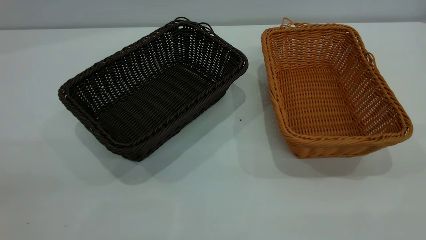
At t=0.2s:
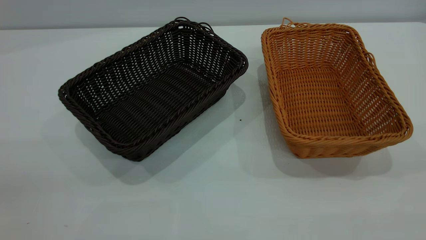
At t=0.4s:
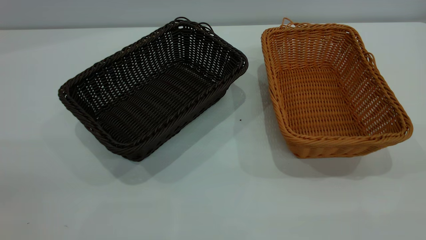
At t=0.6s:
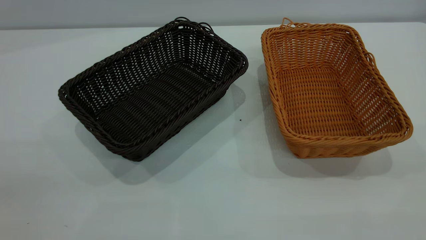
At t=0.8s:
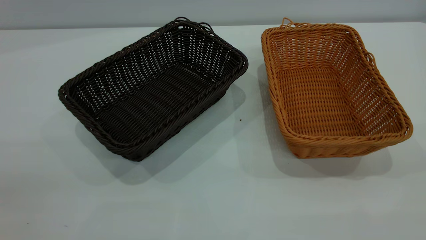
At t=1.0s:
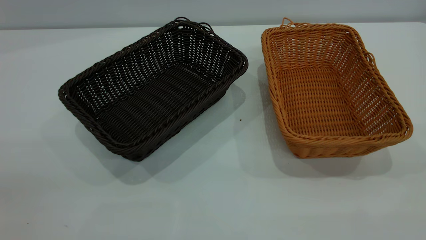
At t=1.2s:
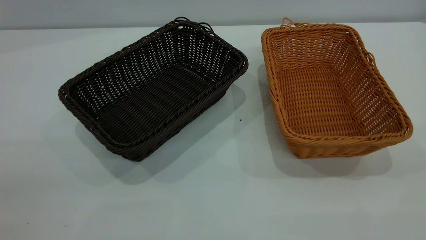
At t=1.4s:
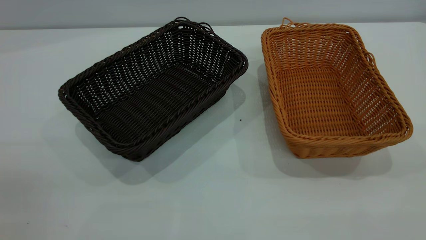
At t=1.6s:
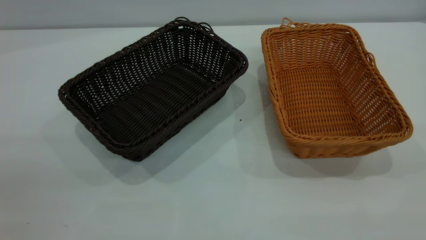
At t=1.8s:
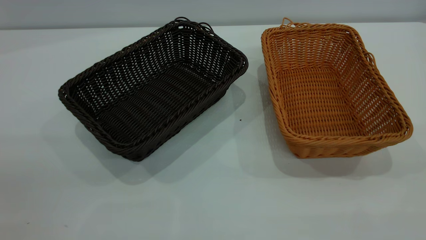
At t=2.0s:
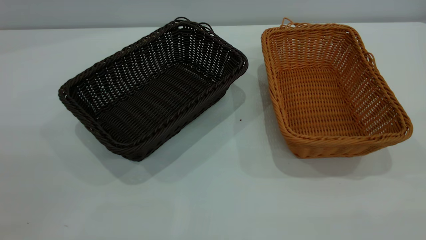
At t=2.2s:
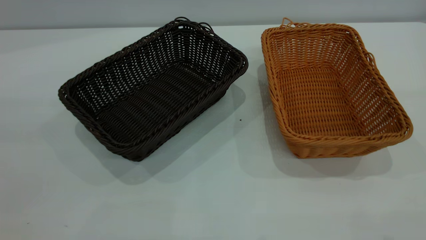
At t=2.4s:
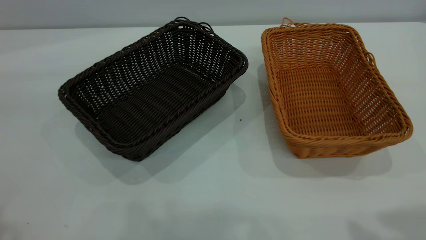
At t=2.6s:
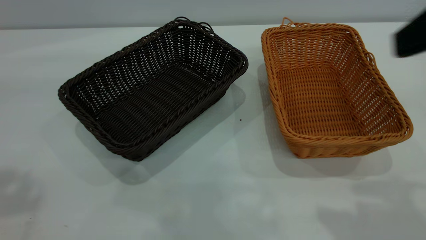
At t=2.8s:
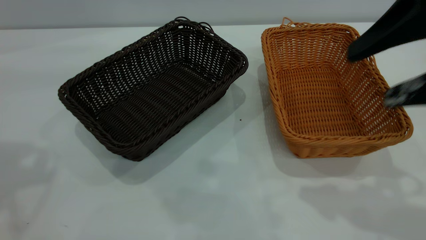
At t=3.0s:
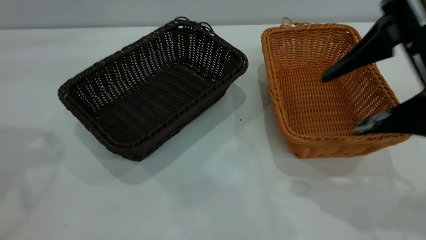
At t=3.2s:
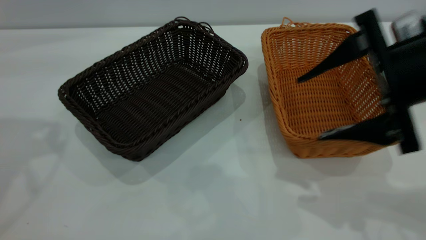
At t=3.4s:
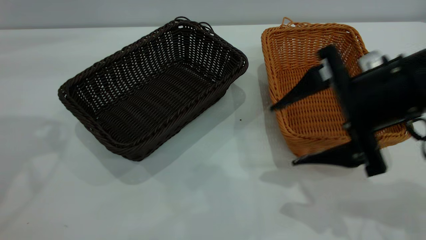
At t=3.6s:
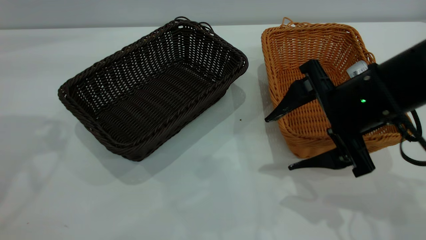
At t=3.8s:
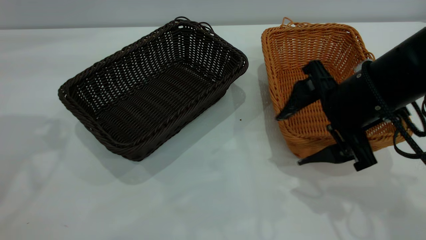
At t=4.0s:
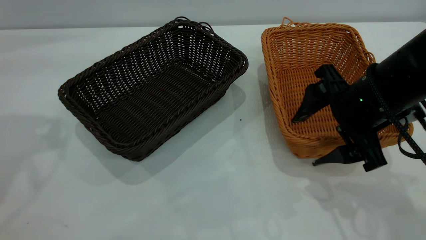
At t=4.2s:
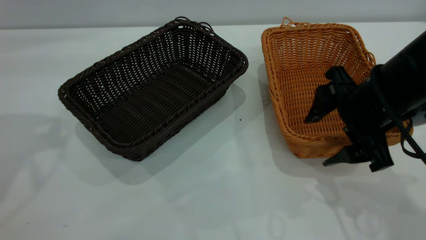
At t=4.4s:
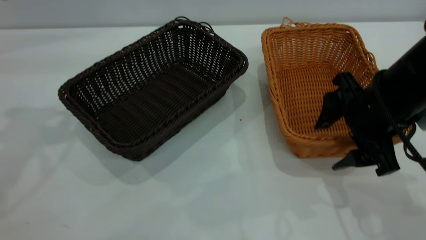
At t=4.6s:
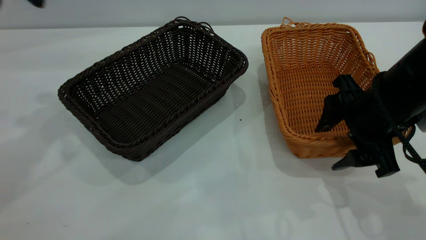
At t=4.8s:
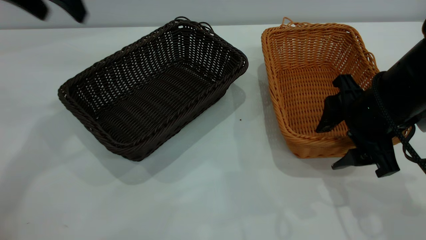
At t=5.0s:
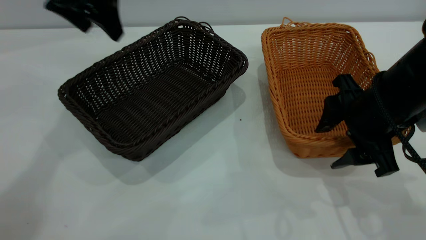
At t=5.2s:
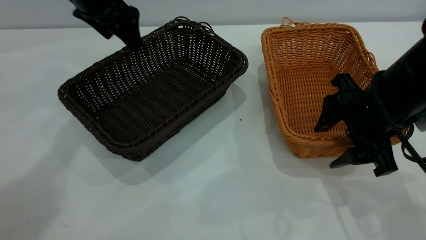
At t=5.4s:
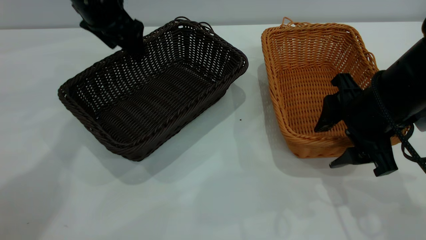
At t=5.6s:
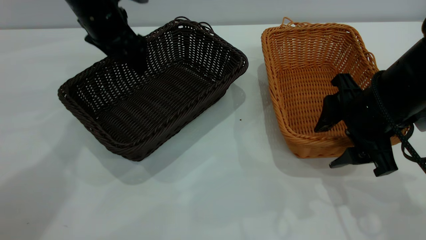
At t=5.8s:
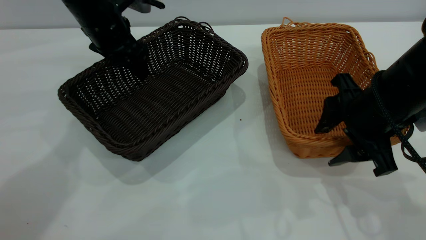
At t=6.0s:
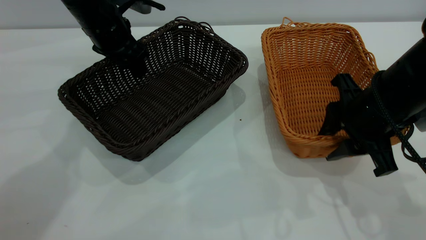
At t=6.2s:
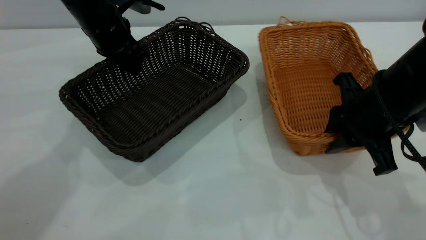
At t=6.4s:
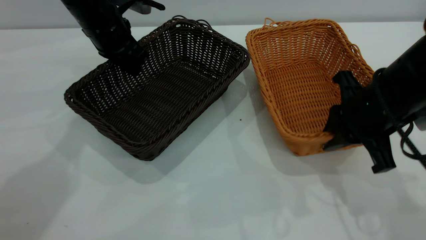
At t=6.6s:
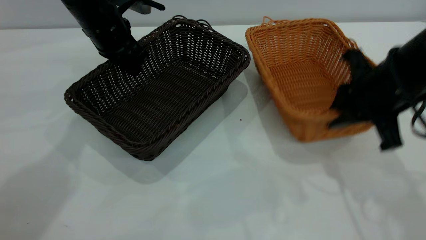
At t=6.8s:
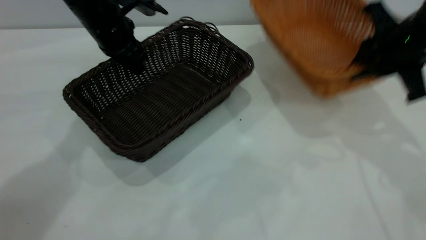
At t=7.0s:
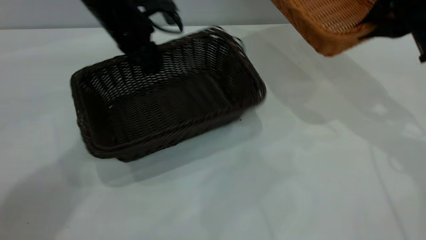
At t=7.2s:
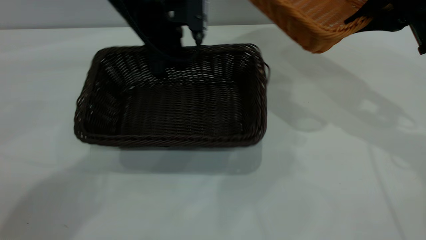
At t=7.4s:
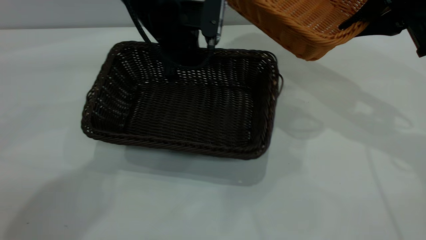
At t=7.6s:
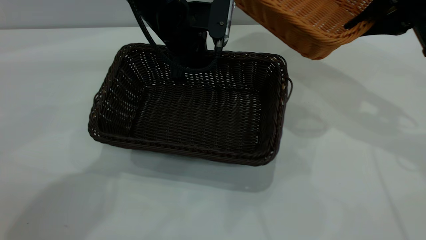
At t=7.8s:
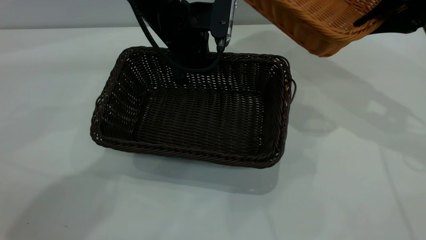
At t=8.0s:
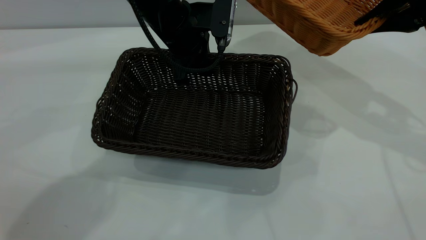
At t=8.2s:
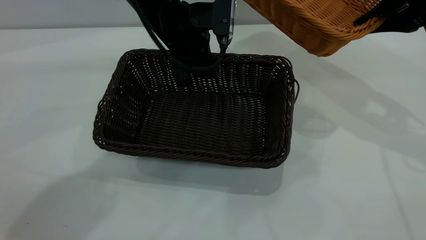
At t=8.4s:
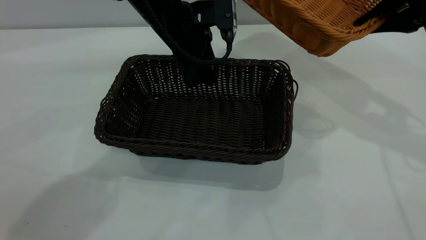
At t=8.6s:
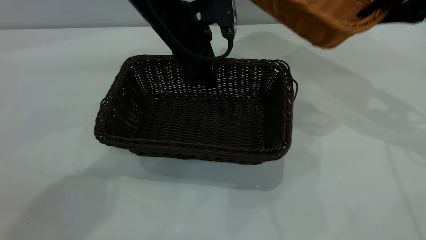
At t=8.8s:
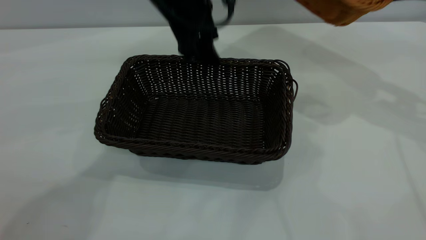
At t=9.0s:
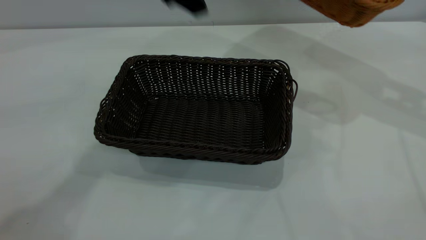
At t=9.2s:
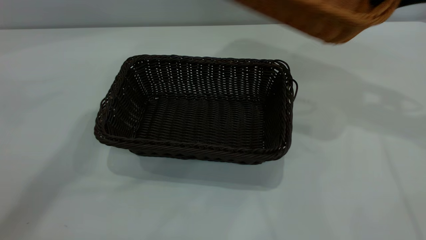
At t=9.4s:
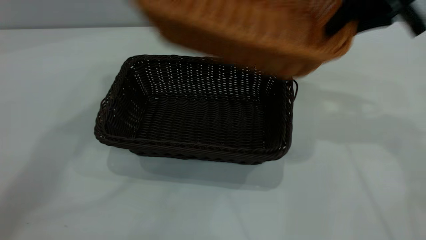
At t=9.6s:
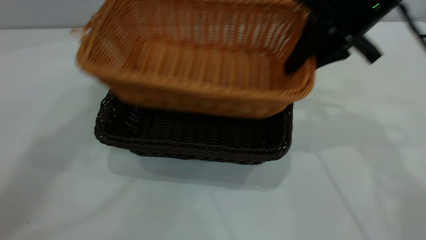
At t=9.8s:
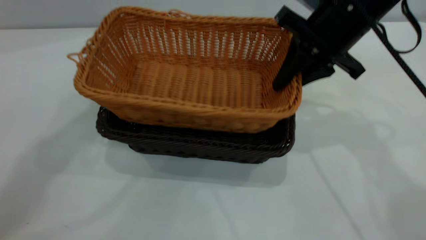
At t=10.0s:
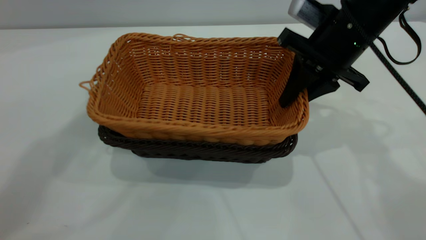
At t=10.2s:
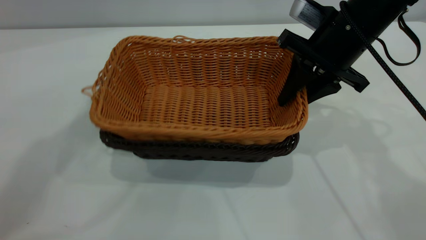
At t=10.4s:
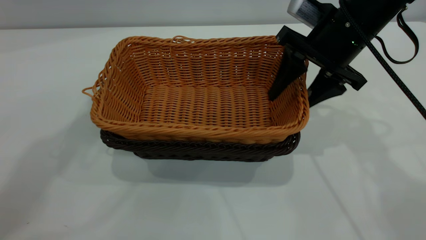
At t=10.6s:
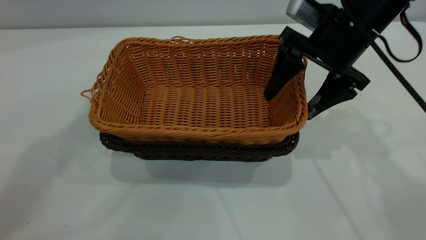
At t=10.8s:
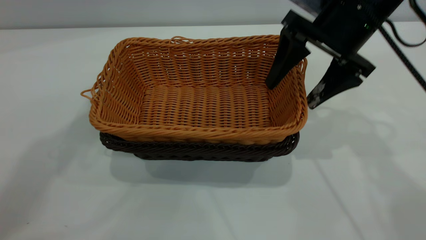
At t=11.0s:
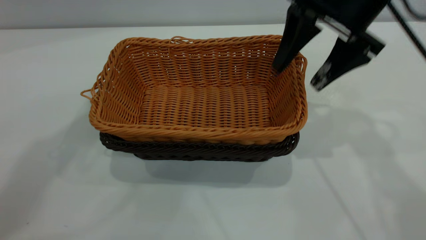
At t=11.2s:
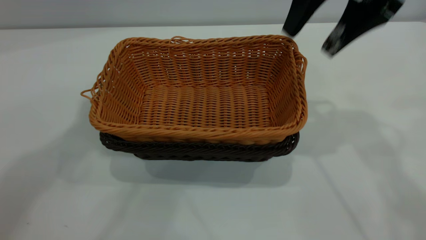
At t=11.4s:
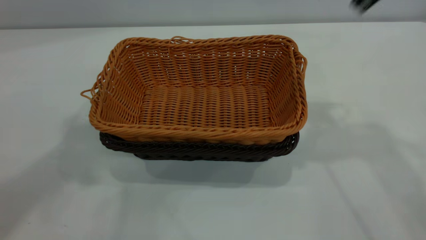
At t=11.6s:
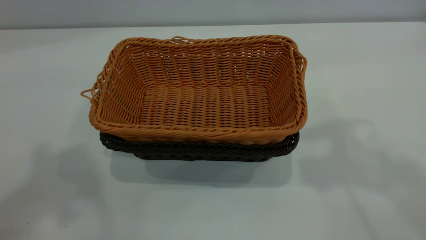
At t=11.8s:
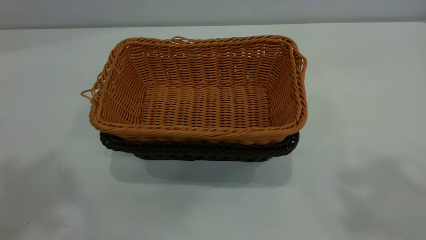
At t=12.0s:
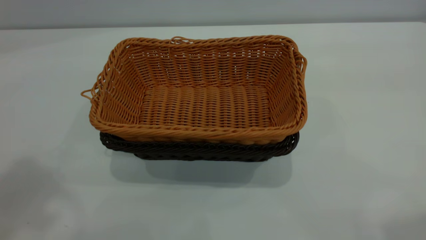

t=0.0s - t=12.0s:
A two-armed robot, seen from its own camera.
Task of the whole recording: the left gripper grasp the black basket and place it in the center of the table, the right gripper grasp the brown basket and place it inside the black one.
Step, t=0.0s - t=6.6s: Pick up the light basket with the right gripper.
Step, t=6.8s - t=8.8s: Move the dark basket to the center of view.
Step, t=9.0s - t=11.2s: Place the light basket on the dark basket.
t=0.0s - t=1.6s: Both grippers stay put.
t=1.6s - t=3.0s: The right gripper travels forward and downward by some 25 cm.
t=3.0s - t=4.4s: The right gripper moves downward, roughly 10 cm.
t=4.4s - t=6.0s: The left gripper moves downward, forward and to the right, approximately 25 cm, and closes up. The right gripper closes up.
t=6.0s - t=7.6s: The right gripper travels upward, forward and to the right by roughly 15 cm, while the left gripper travels to the right by approximately 10 cm, and closes its fingers.
t=7.6s - t=9.0s: The right gripper shifts by roughly 5 cm. Meanwhile the left gripper heads upward, covering some 15 cm, and opens its fingers.
t=9.0s - t=10.4s: The right gripper travels to the left and downward by some 20 cm, and opens its fingers, while the left gripper heads upward and to the left, covering approximately 20 cm.
t=10.4s - t=12.0s: The left gripper is displaced backward, upward and to the left by approximately 20 cm. The right gripper shifts approximately 40 cm upward and backward.
